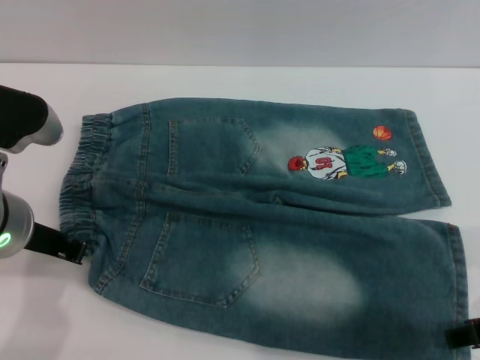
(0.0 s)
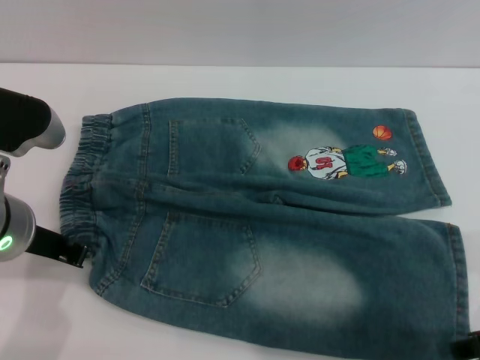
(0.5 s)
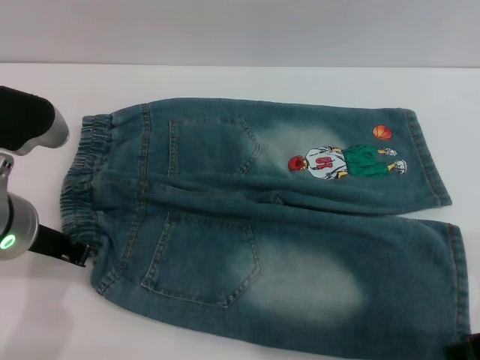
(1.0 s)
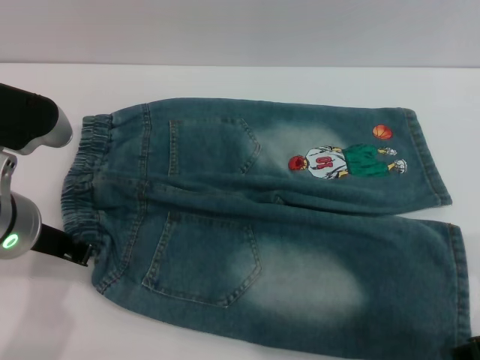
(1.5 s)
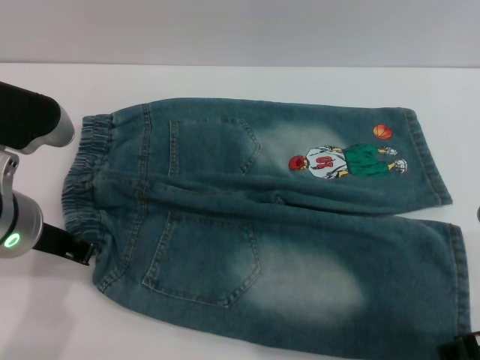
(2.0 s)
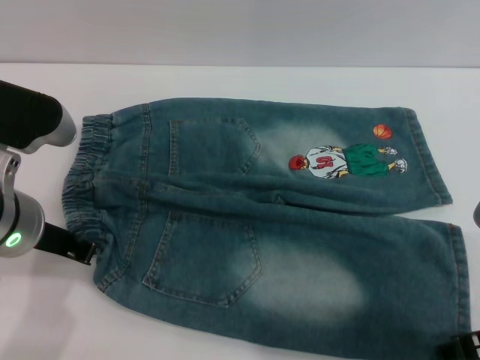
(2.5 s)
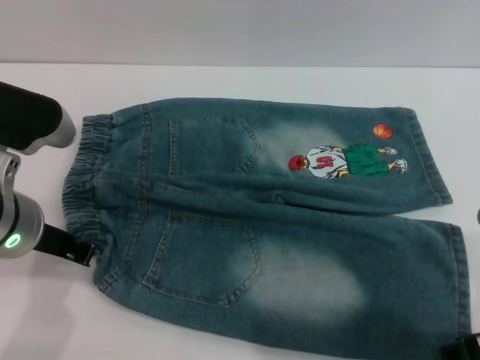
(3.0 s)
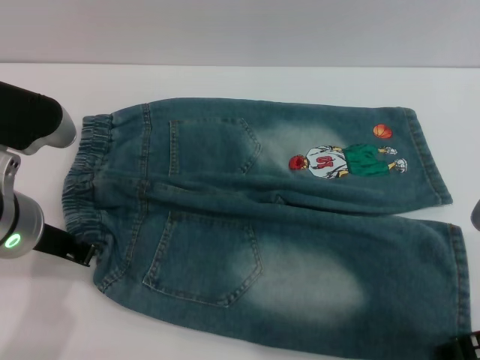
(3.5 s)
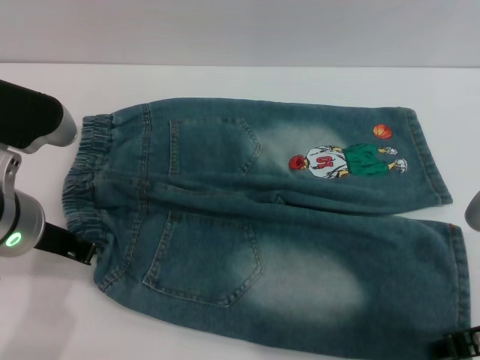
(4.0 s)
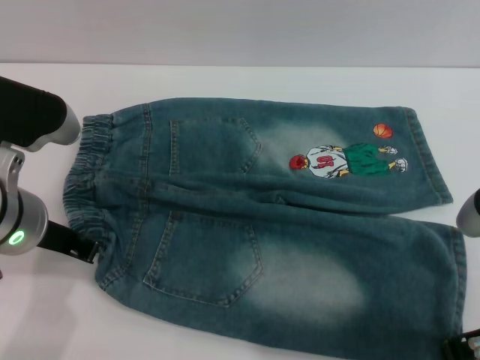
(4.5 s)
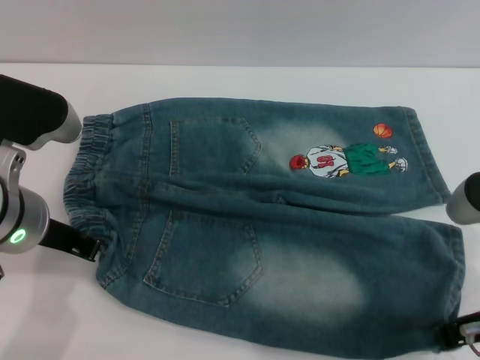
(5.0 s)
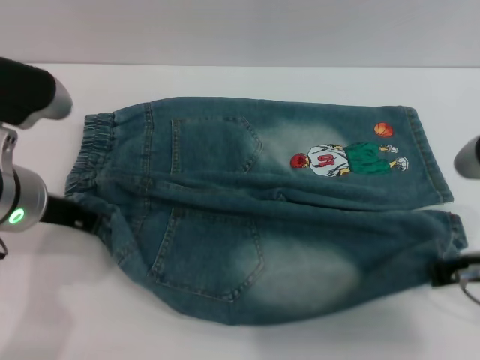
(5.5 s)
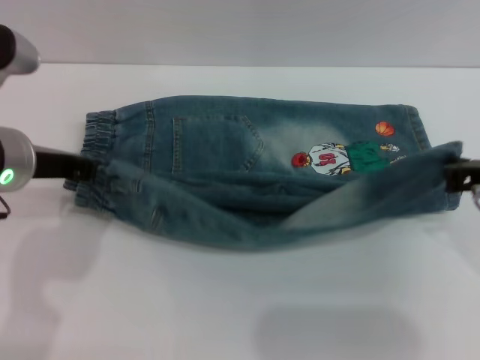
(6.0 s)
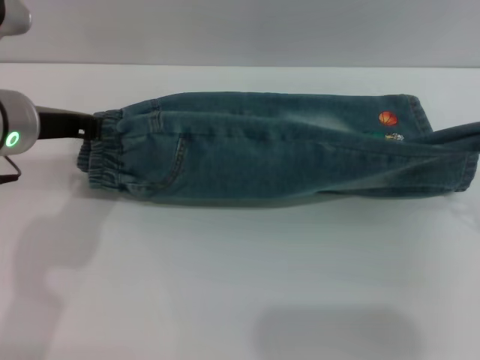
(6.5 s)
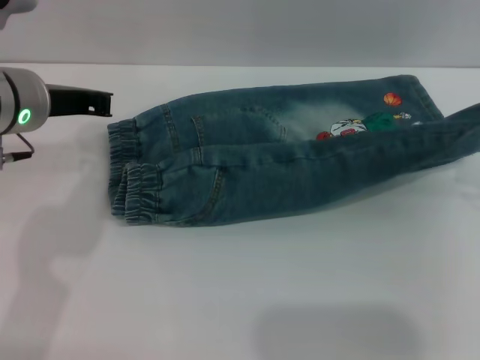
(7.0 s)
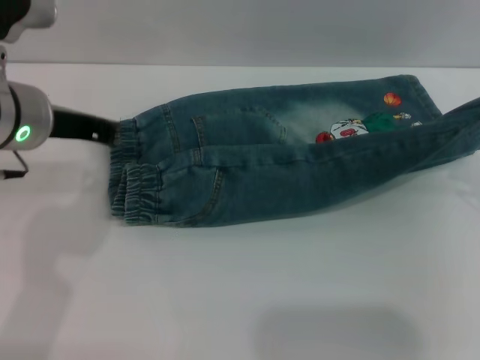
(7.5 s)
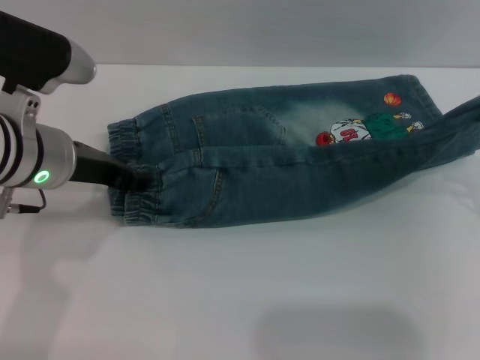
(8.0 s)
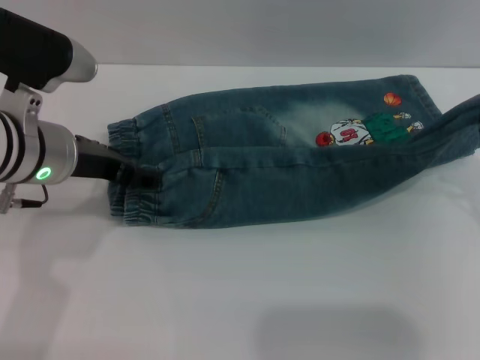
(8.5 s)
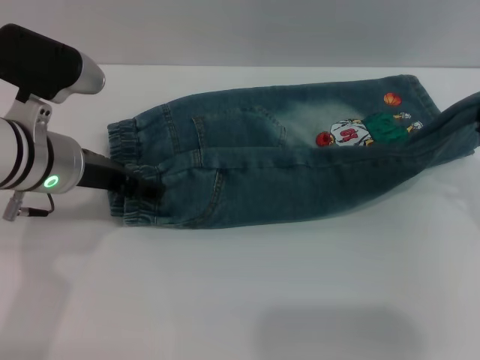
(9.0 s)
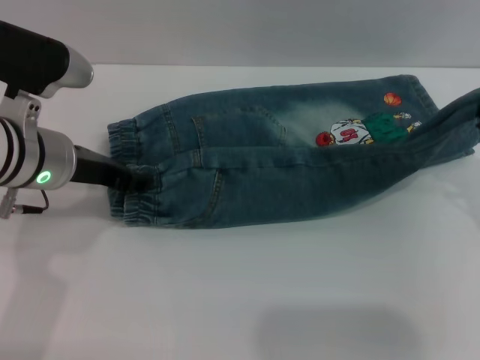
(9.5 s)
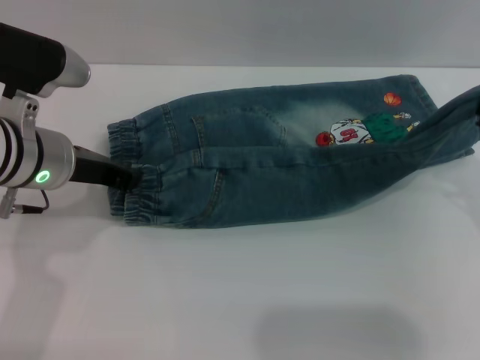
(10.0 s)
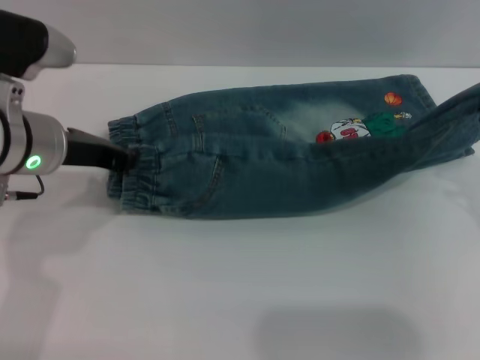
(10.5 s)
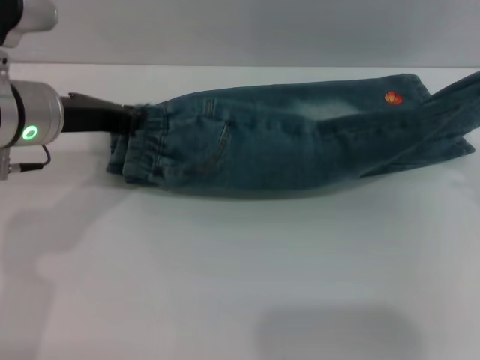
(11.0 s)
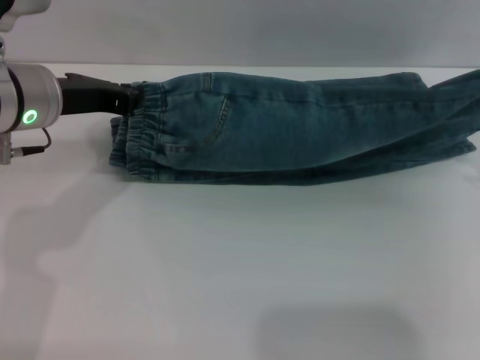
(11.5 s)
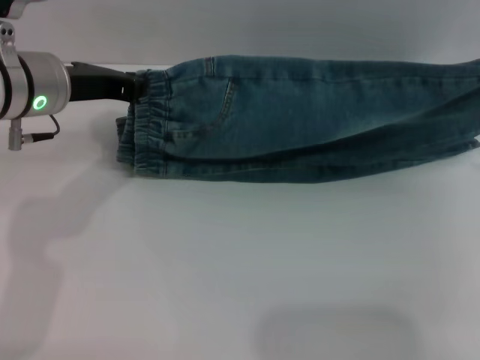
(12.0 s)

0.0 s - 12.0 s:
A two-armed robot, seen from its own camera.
0.0 s - 2.0 s: The grippers stay close to where they were, moving slightly.
2.0 s - 4.0 s: Both grippers stay put.
4.0 s - 6.0 s: The right gripper shifts some 5 cm forward, and closes.
6.0 s - 8.0 s: The left gripper opens its fingers.
8.0 s - 10.0 s: The left gripper opens, then closes again.
10.0 s - 12.0 s: The left gripper shifts by approximately 5 cm.

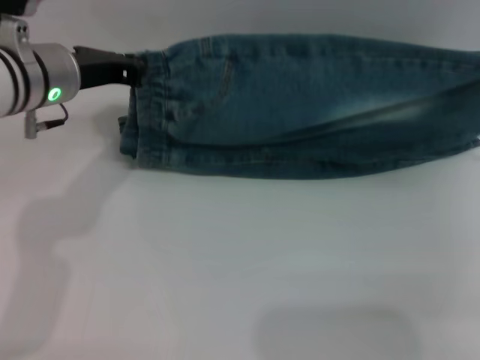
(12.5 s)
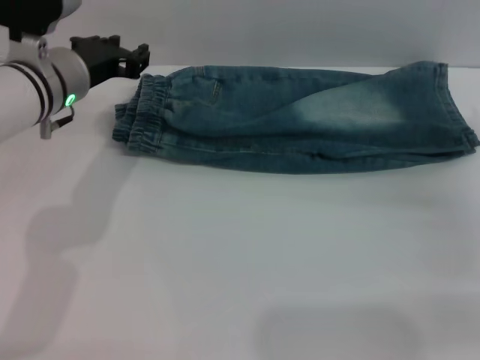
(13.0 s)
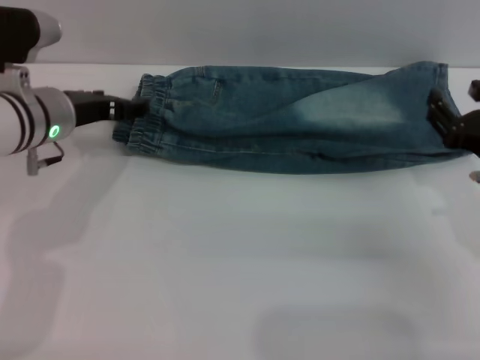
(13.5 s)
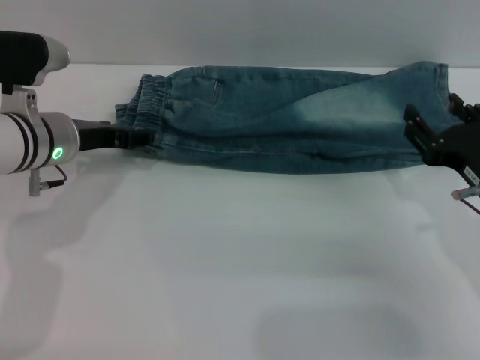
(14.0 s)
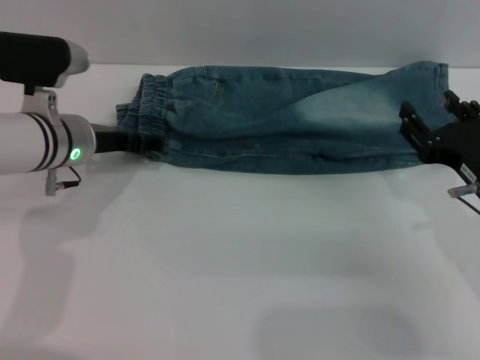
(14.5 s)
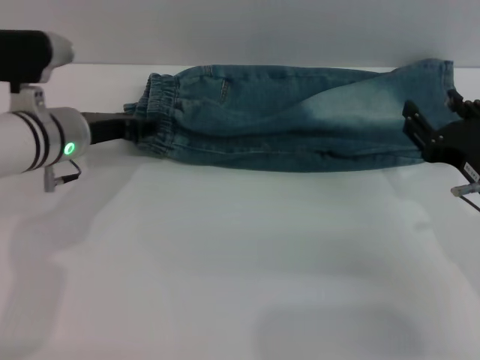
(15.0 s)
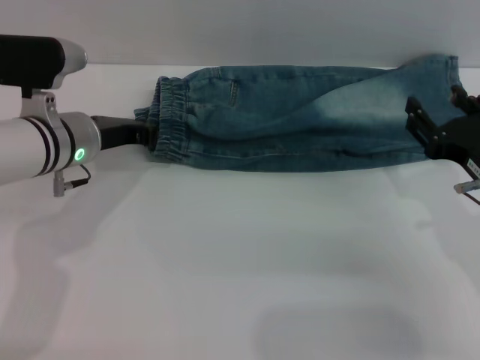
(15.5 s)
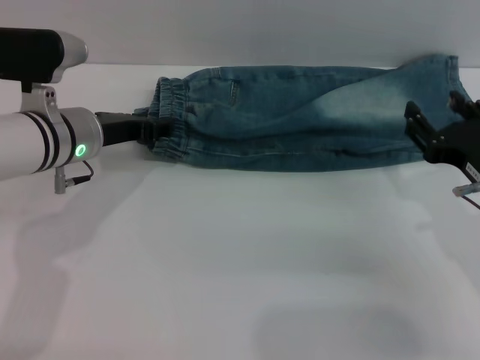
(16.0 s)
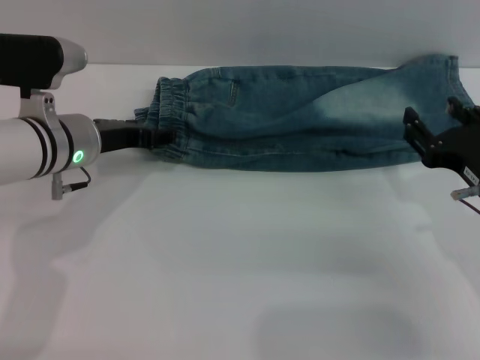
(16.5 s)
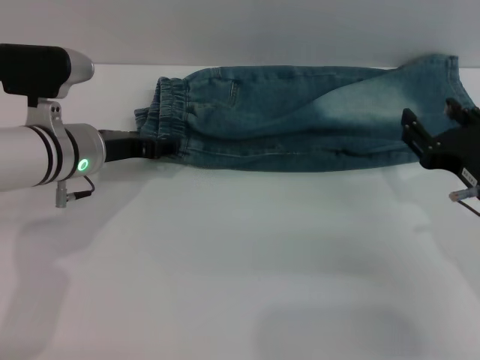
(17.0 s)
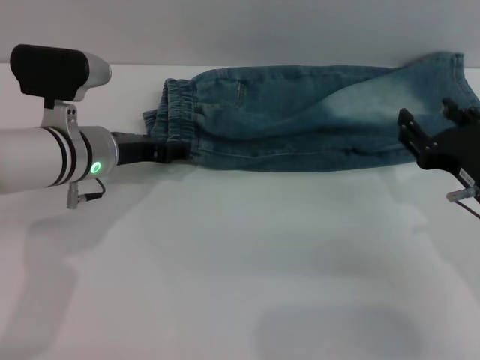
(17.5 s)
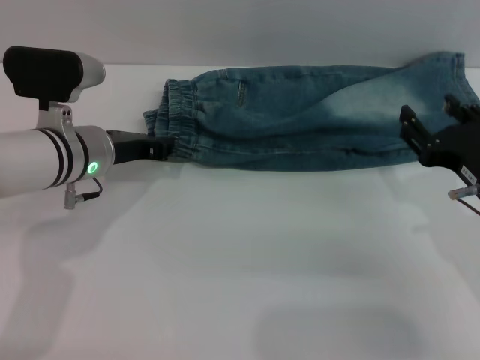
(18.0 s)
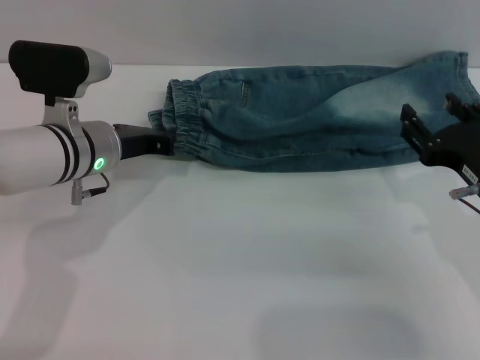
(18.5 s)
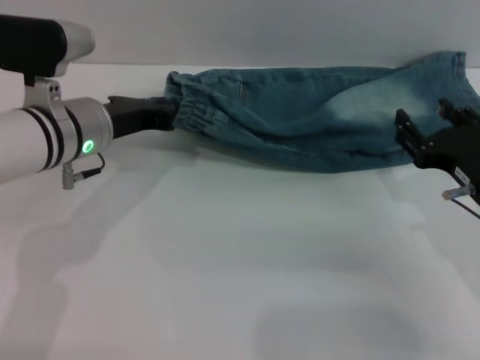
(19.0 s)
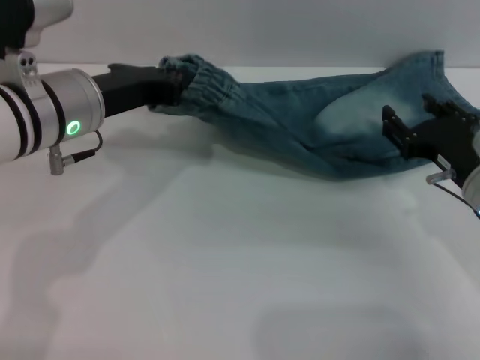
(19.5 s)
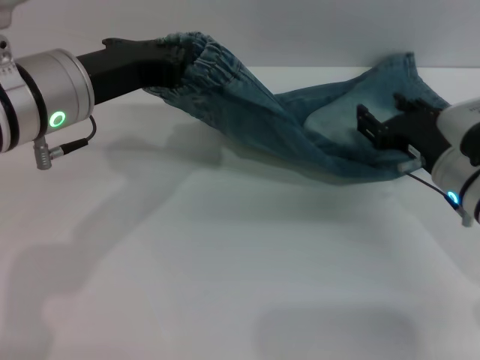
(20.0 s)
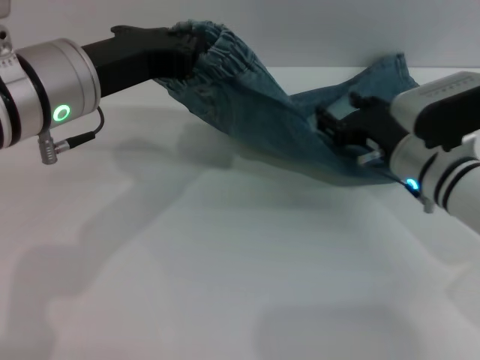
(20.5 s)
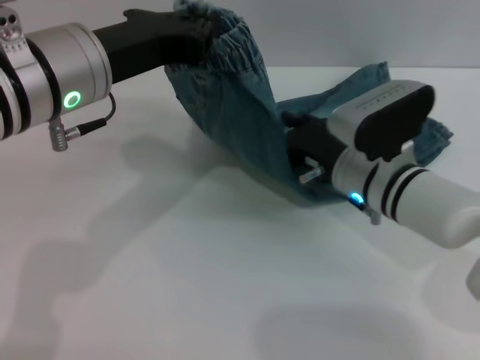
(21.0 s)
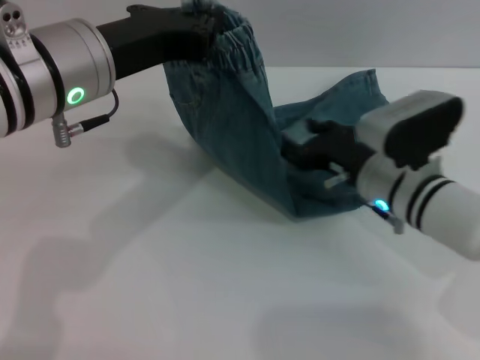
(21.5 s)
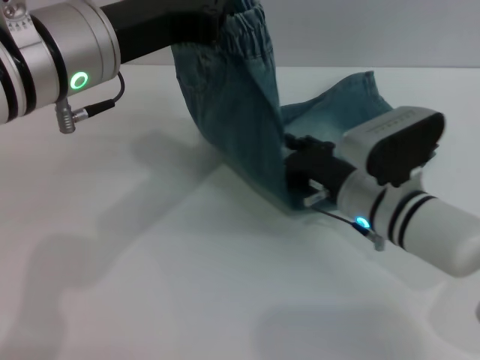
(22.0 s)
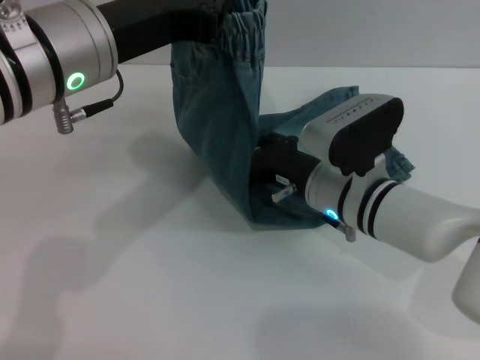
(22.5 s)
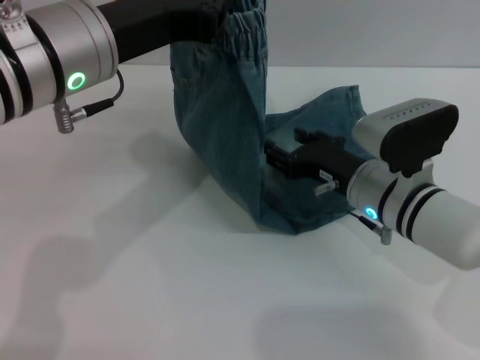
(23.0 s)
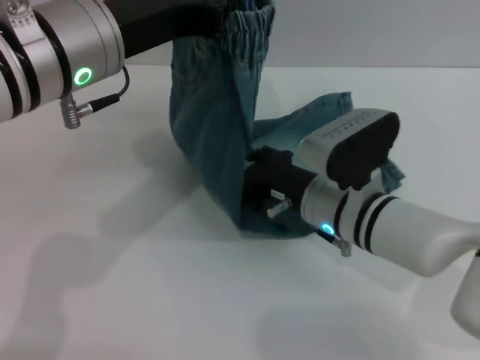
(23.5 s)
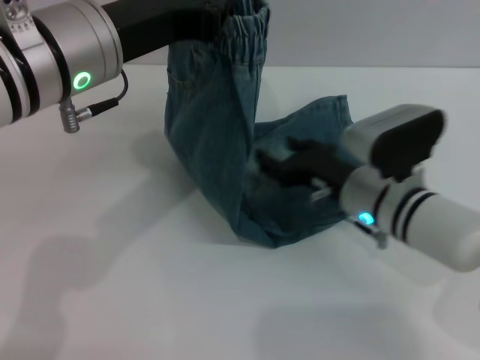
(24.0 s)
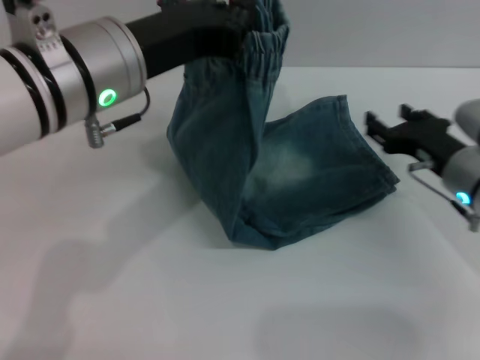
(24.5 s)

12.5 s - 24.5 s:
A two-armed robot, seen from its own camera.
12.5 s - 14.5 s: The right gripper goes about 10 cm backward, to the left and downward, and opens; the left gripper moves downward, approximately 5 cm, and opens up.
14.5 s - 16.5 s: The left gripper closes, then reopens.
16.5 s - 18.5 s: The left gripper closes.
18.5 s - 20.5 s: The right gripper is displaced forward by about 10 cm. Meanwhile the left gripper heads upward and backward, covering some 15 cm.
20.5 s - 22.5 s: The right gripper heads to the left, covering about 10 cm.
22.5 s - 24.5 s: The right gripper goes left and right, approximately 15 cm each way, reversing 2 times.

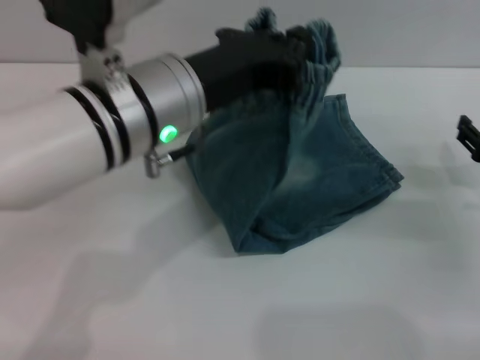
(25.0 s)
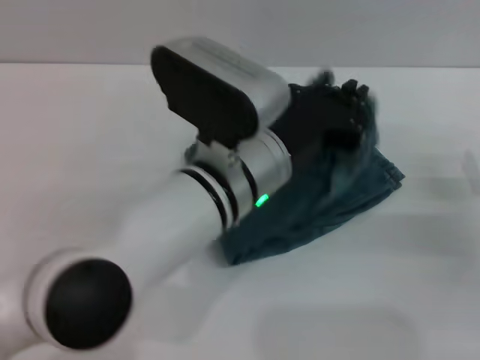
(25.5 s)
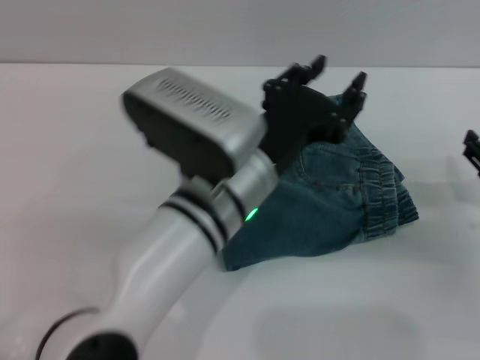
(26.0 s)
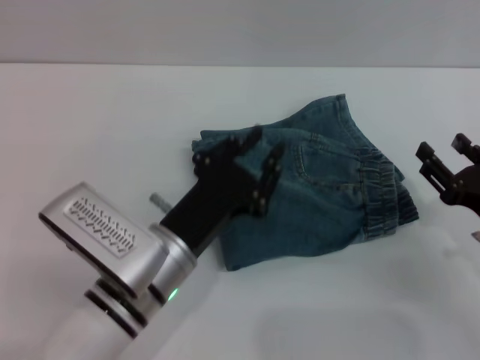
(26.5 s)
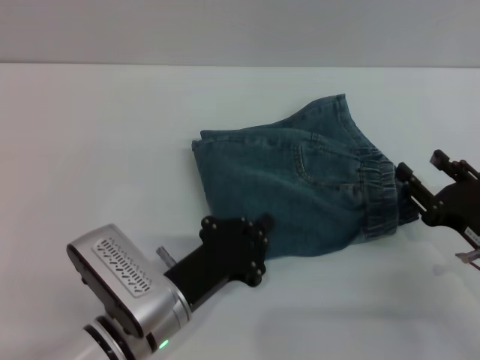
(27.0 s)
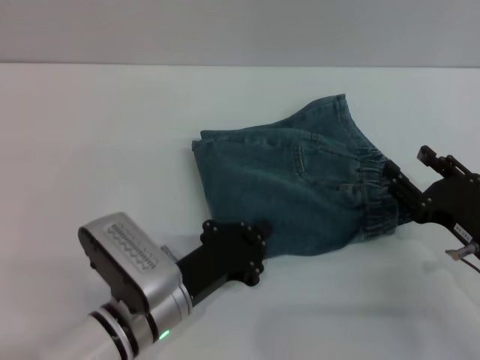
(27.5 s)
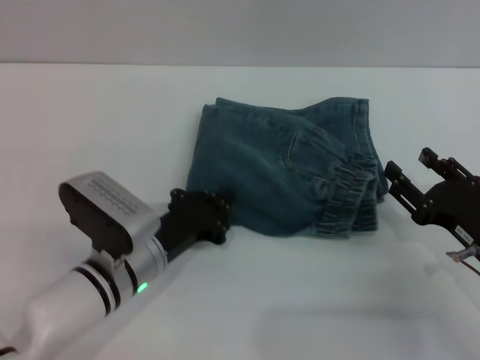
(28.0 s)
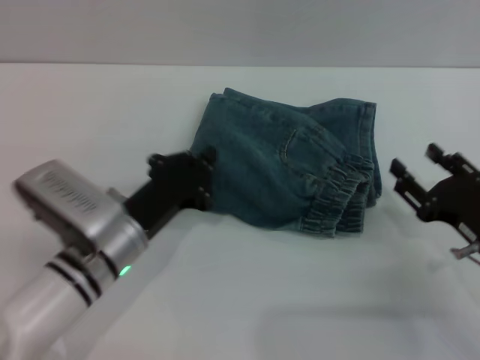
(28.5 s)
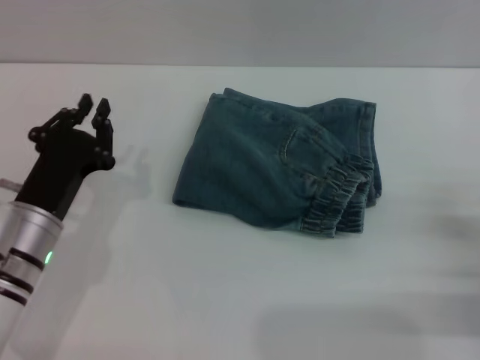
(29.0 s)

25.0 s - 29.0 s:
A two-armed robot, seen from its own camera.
Step, 26.0 s - 28.5 s: Place the folded trousers onto the center area with the left grippers.
25.0 s - 27.0 s: The left gripper heads downward and backward, covering approximately 20 cm, and opens and closes again; the right gripper shifts approximately 5 cm backward.
27.0 s - 29.0 s: The right gripper heads to the right, covering roughly 5 cm, while the left gripper shifts roughly 10 cm to the left.
